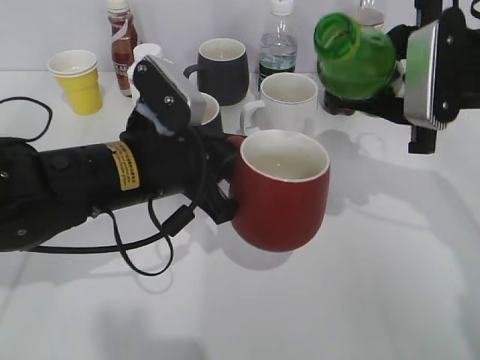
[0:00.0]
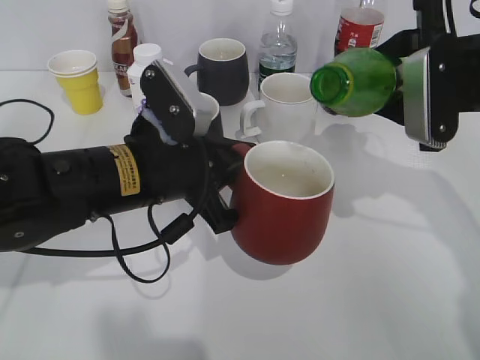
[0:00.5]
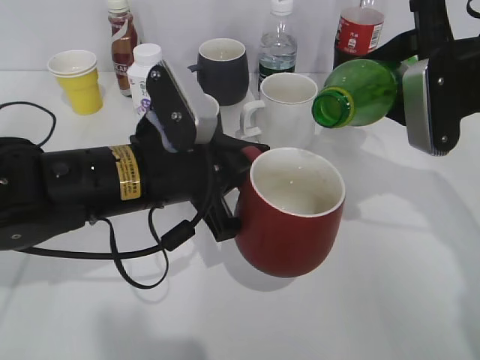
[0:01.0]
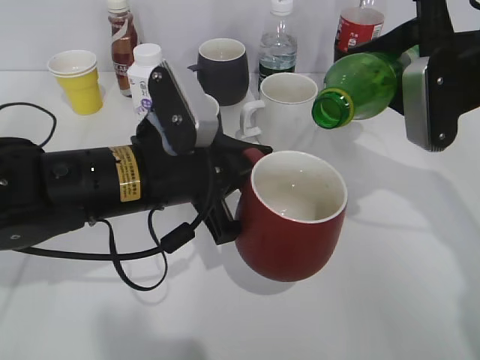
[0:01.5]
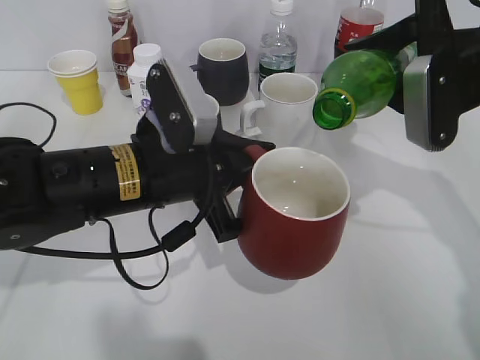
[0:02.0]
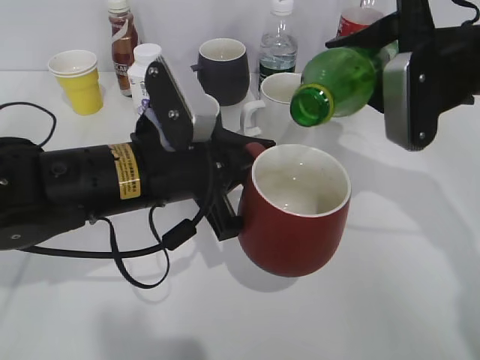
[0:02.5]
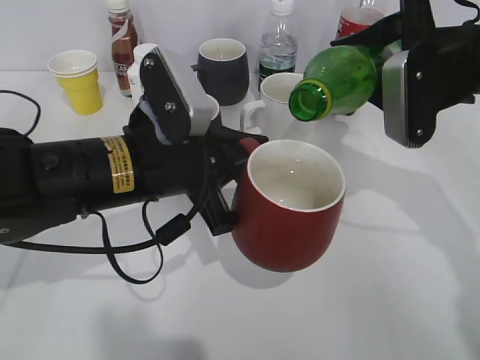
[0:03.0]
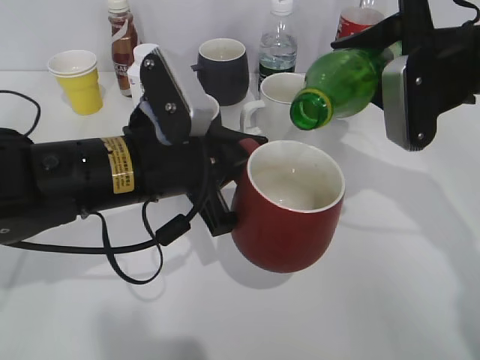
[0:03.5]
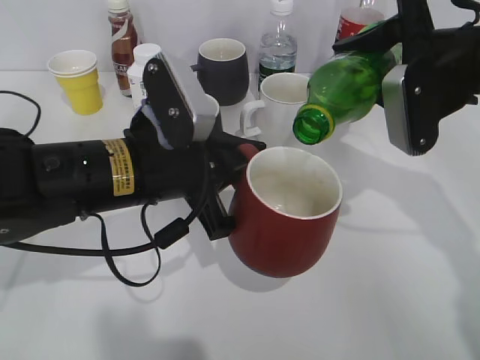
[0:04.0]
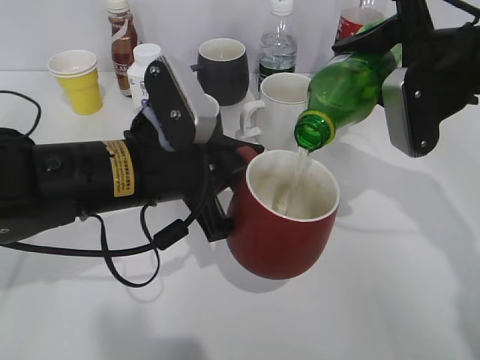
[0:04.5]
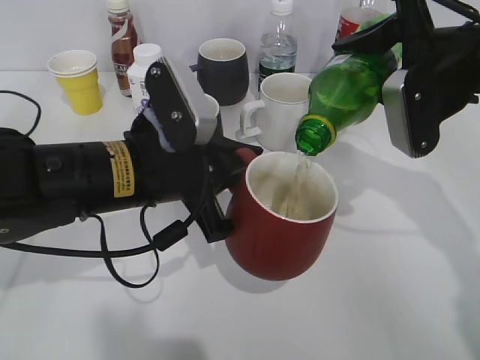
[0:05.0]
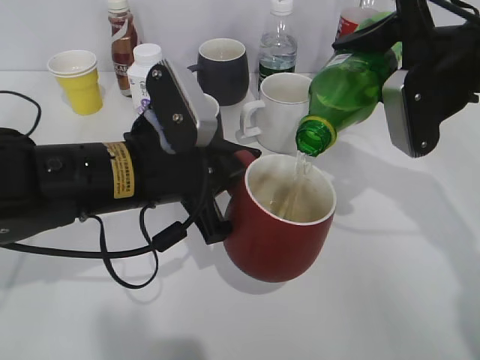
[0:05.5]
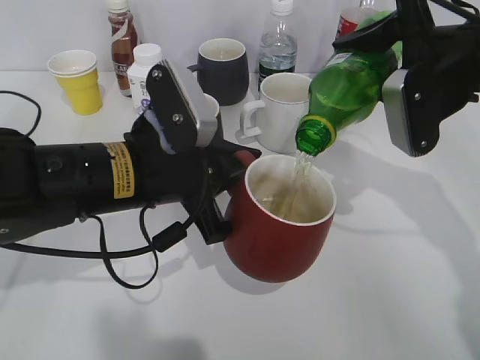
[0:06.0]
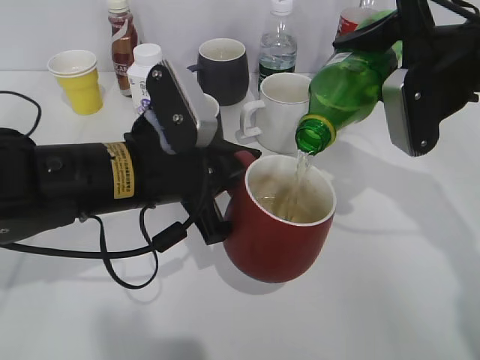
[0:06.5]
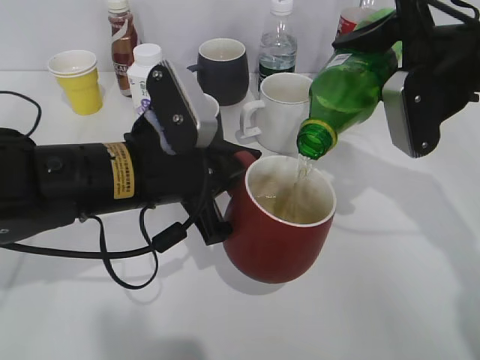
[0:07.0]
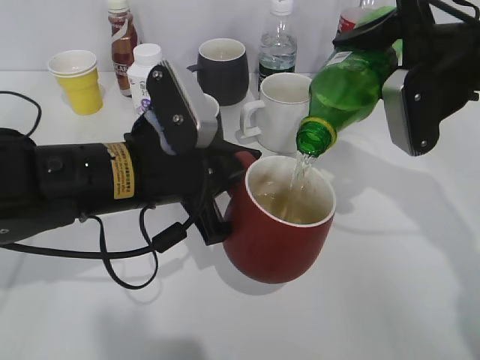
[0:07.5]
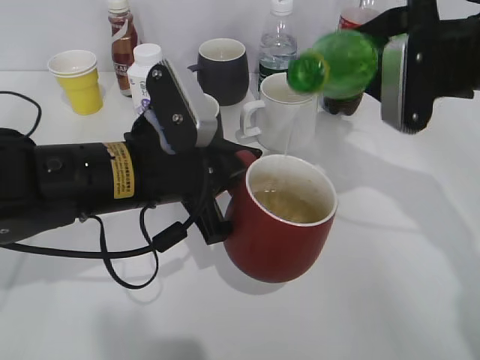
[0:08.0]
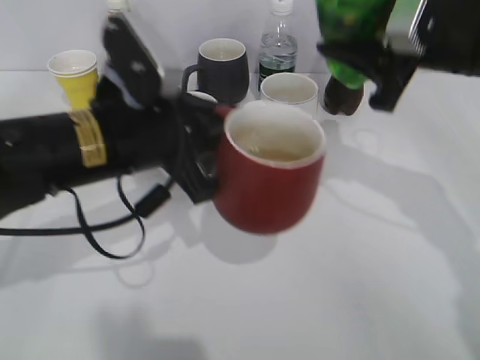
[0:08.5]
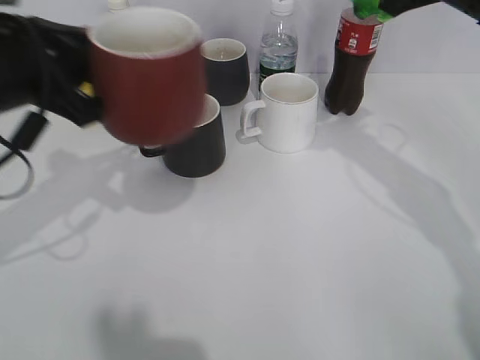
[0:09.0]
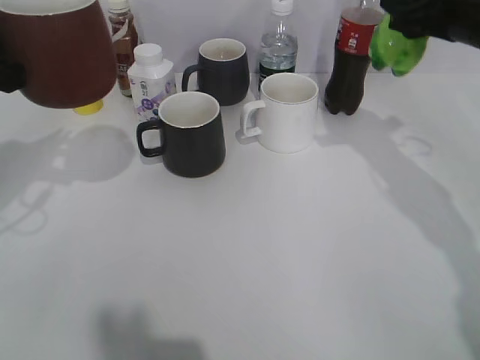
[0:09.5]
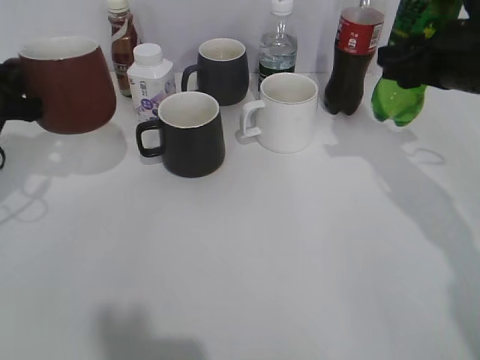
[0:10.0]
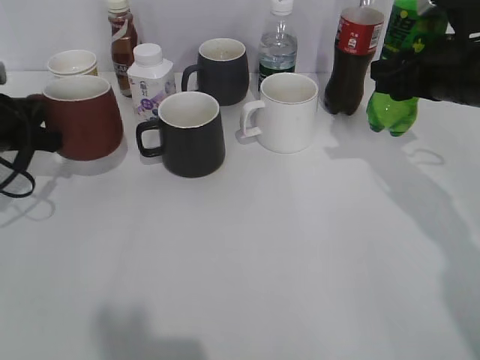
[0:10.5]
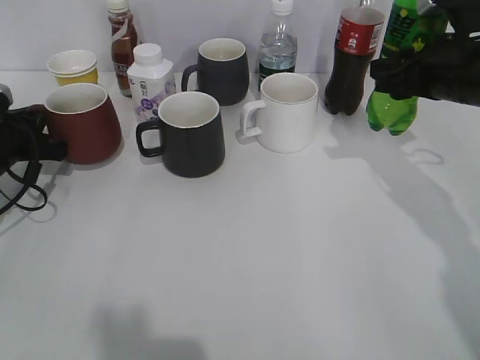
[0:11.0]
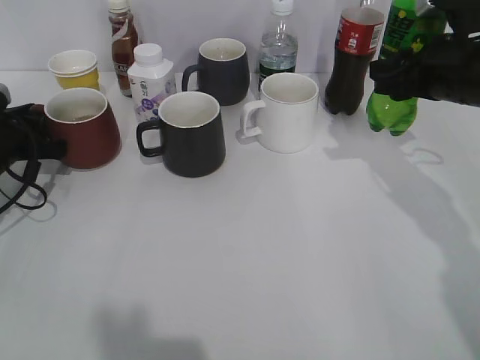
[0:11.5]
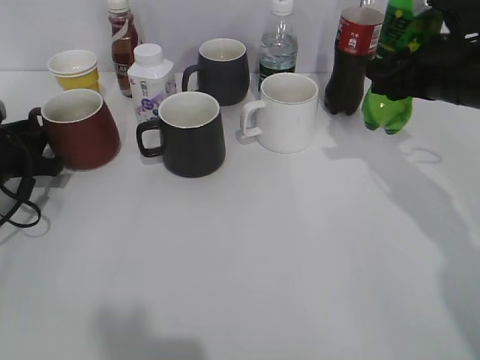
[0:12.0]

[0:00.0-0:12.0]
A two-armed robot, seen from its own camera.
Step, 0.0 to 8.0 s: Pour the sprite from bottle to cup with right gripper.
2.0 to 8.0 s: The grippers stay close to where they were, moving slightly.
8.0 to 10.0 s: The left gripper shifts some 20 cm to the left.
10.0 to 12.0 s: The left gripper shifts about 10 cm downward, and opens its fingers.

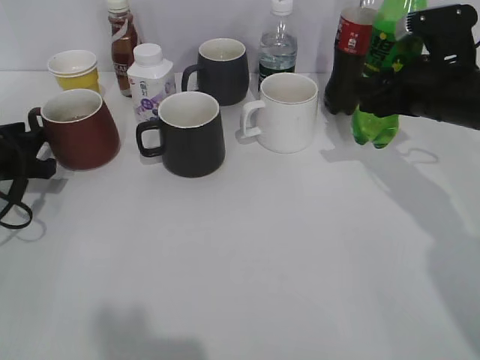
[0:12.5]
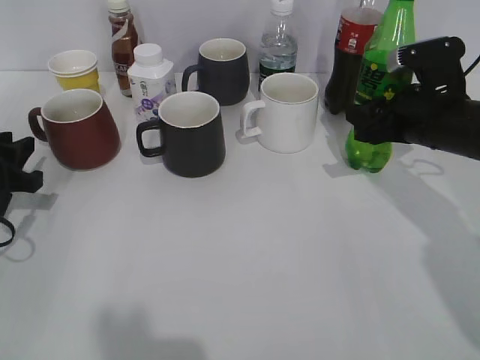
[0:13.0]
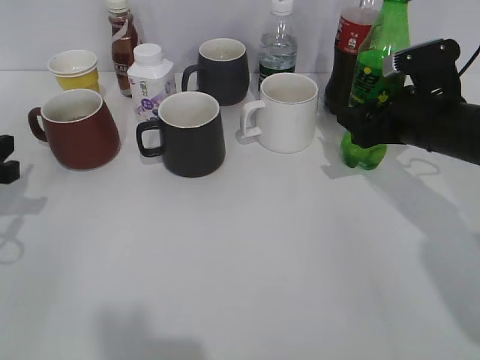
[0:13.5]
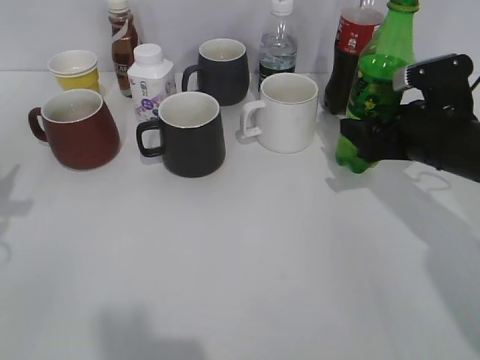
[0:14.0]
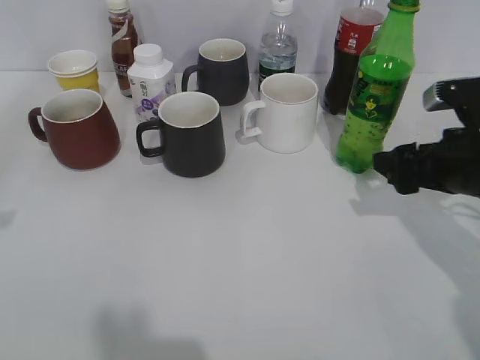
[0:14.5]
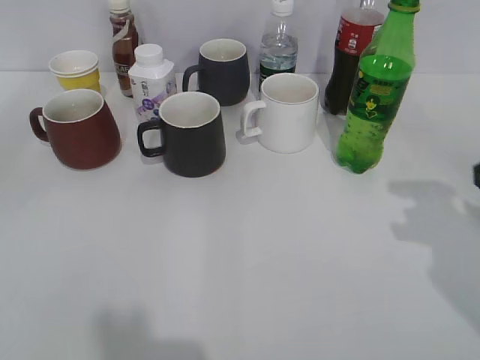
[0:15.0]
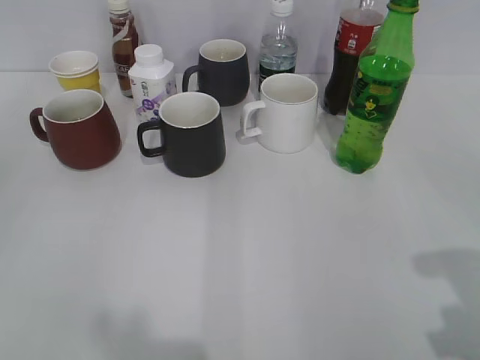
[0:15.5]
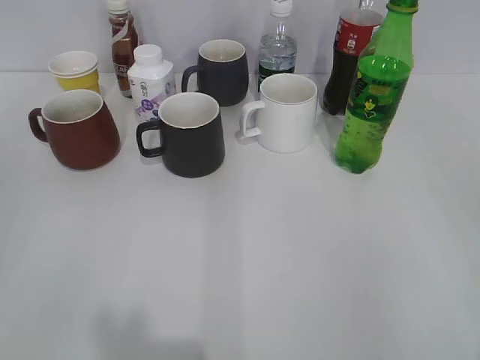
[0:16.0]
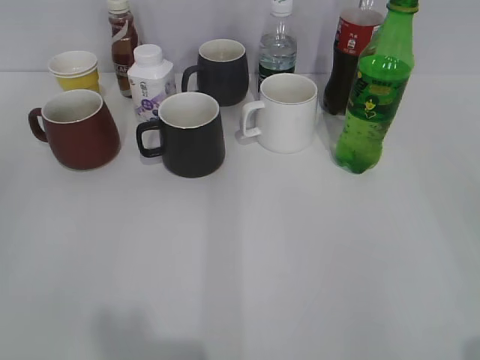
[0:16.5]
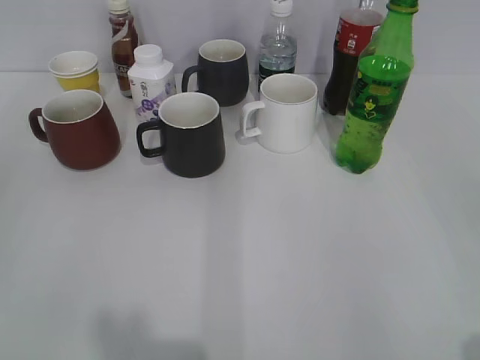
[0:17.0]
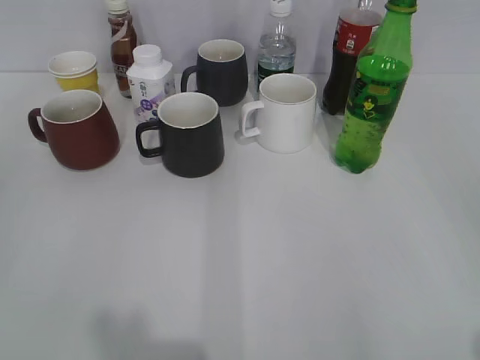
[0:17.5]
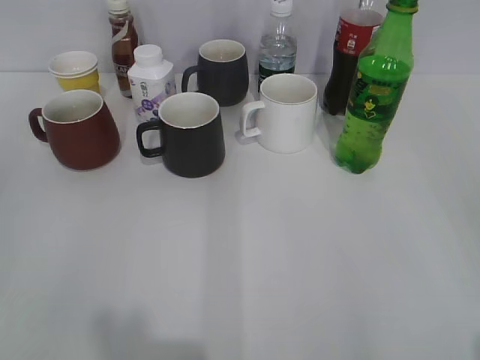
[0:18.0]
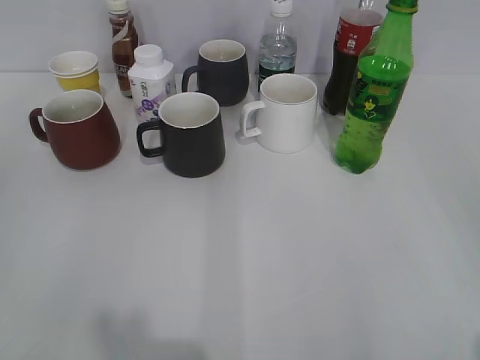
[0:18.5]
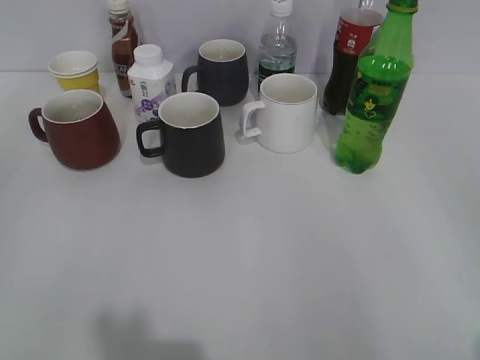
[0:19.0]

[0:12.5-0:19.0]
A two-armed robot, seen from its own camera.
12.5 to 14.5 s: The left gripper travels upward and backward by roughly 20 cm. The right gripper goes roughly 10 cm backward, and opens.
14.5 to 17.0 s: The right gripper goes about 30 cm backward and upward, and closes its fingers.

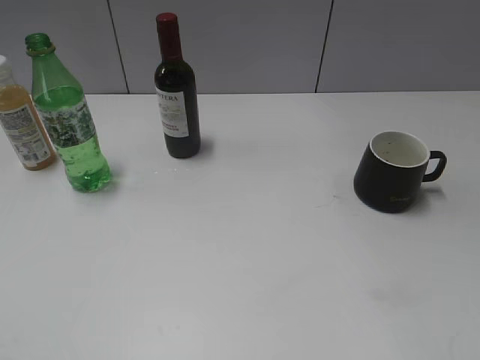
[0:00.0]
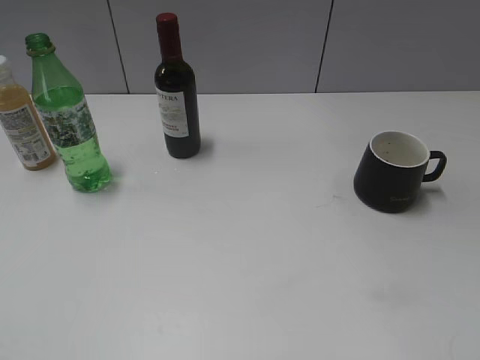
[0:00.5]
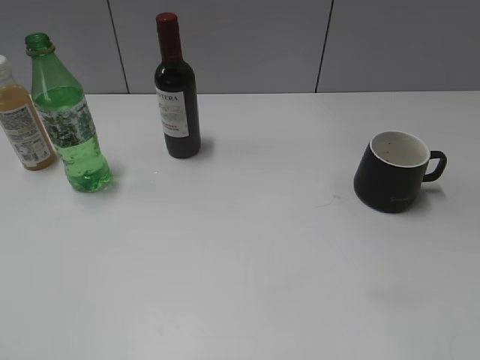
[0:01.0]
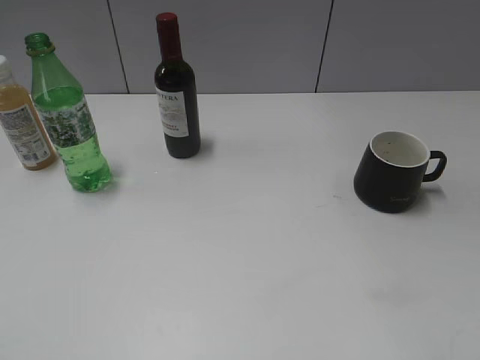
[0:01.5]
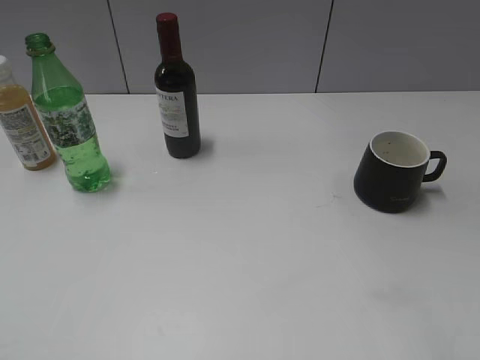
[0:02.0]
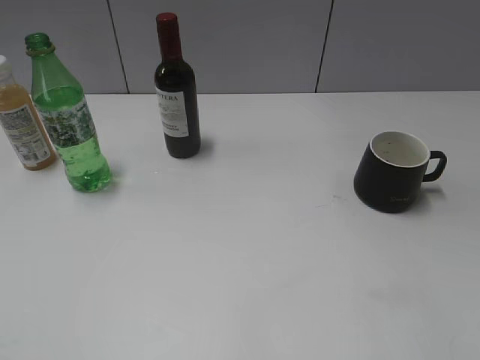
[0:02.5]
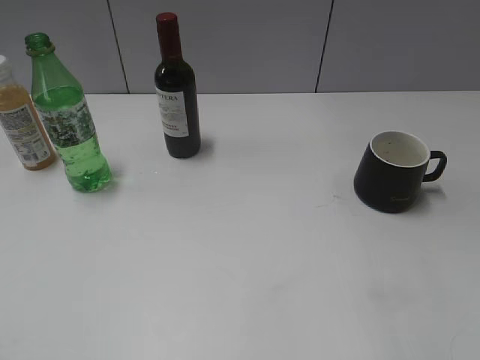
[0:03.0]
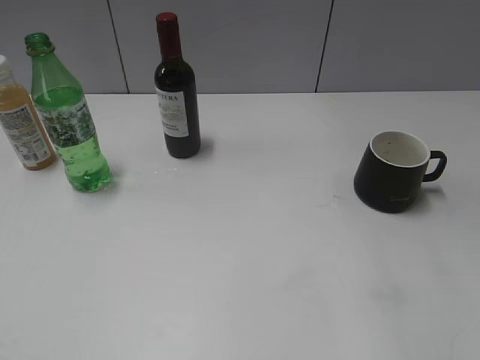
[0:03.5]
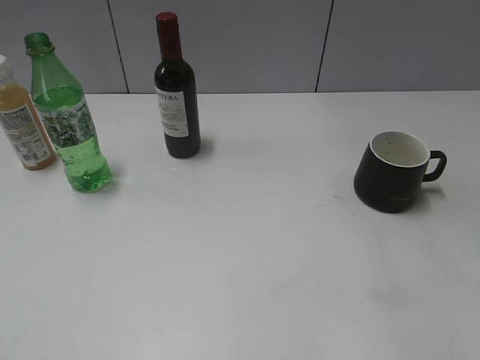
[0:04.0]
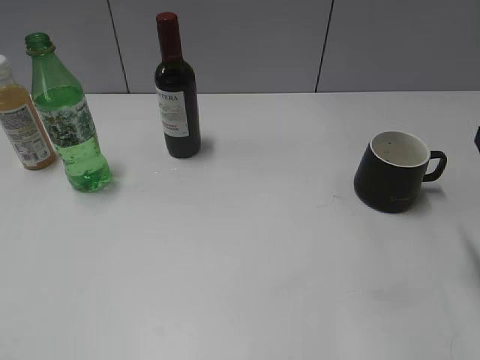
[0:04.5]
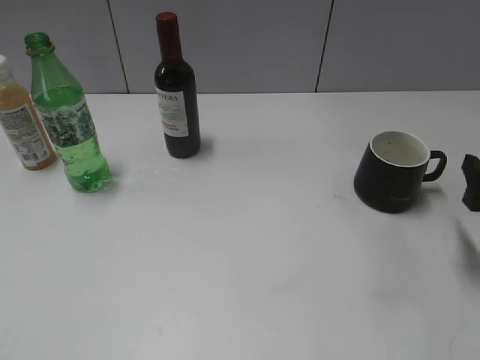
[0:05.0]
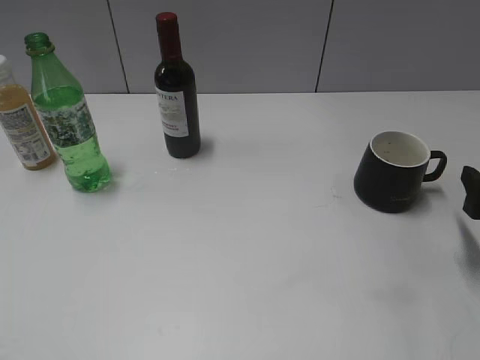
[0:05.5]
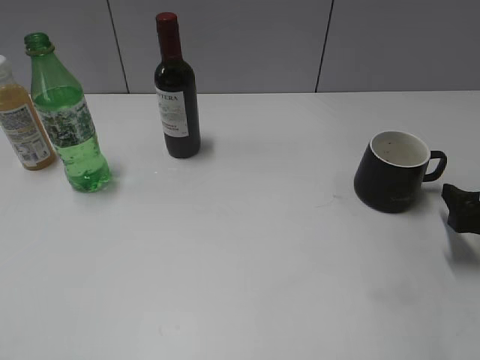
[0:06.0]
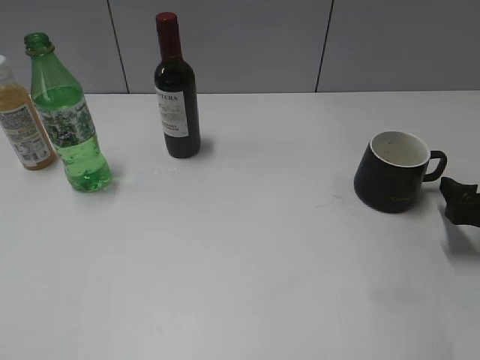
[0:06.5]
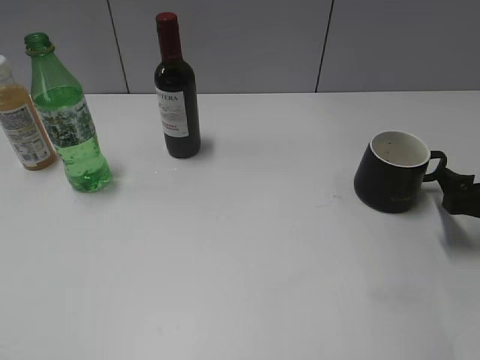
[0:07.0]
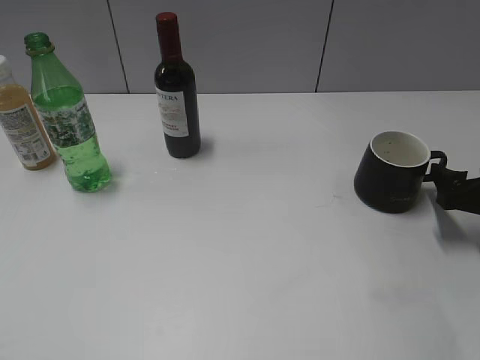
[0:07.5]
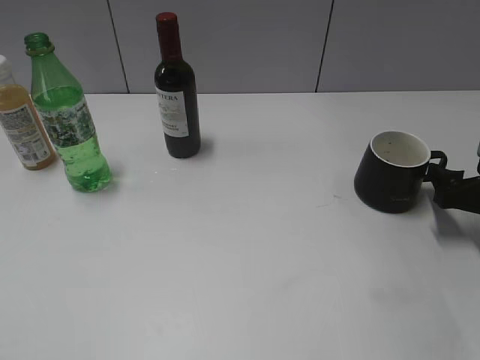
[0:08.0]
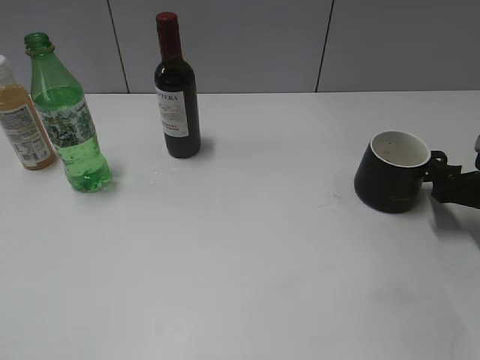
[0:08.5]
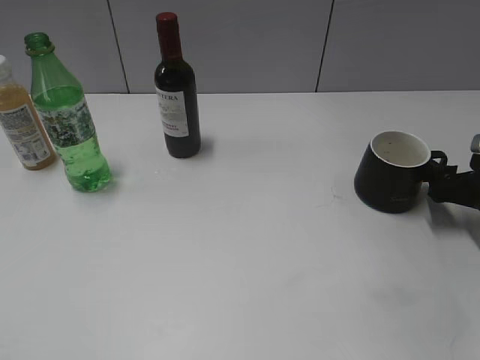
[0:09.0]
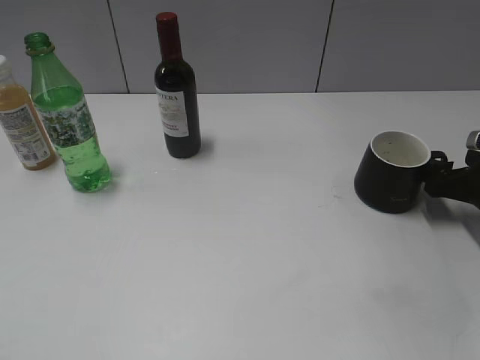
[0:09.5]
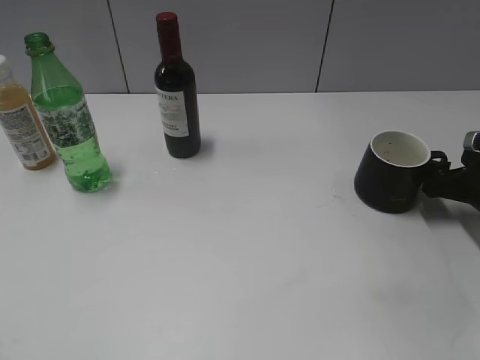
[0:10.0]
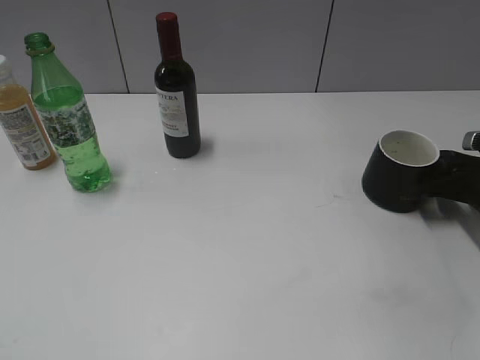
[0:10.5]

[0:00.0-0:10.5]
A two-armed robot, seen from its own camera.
4.0 to 6.5 s: The right gripper moves downward and forward, some 15 cm.
6.5 to 8.5 s: There are only small adjustments of the grippers.
8.5 to 10.5 s: The right gripper closes up.
